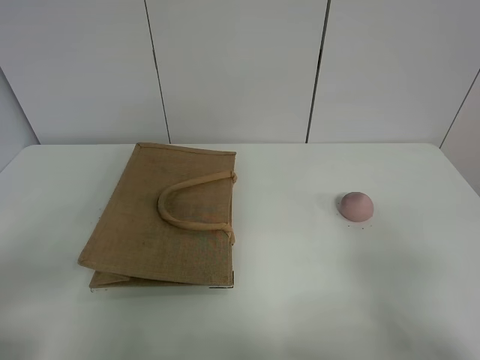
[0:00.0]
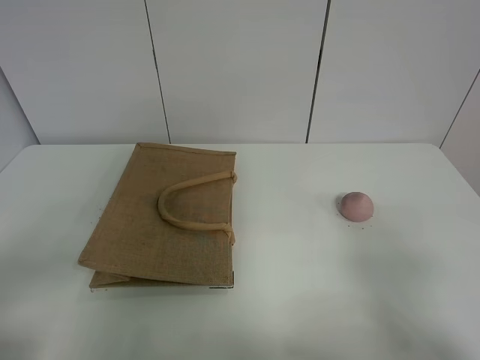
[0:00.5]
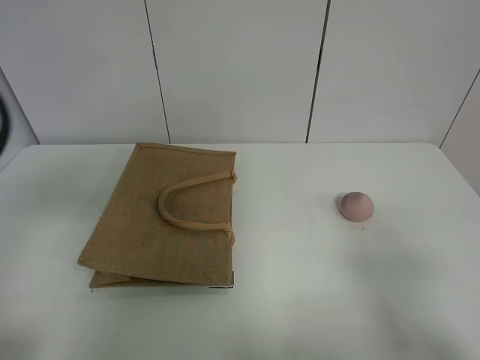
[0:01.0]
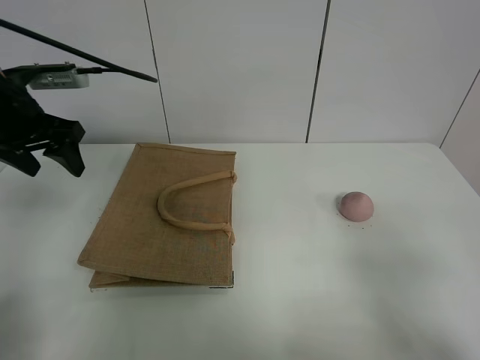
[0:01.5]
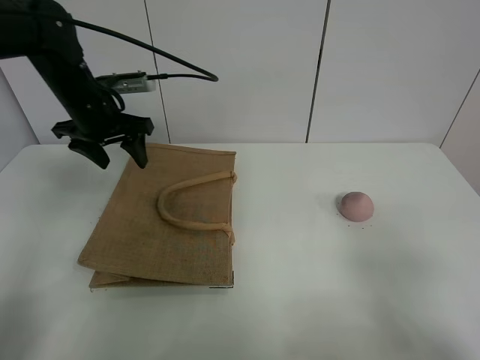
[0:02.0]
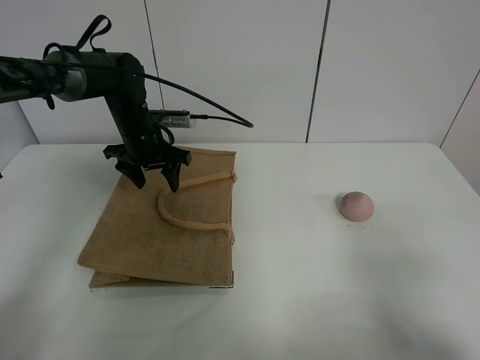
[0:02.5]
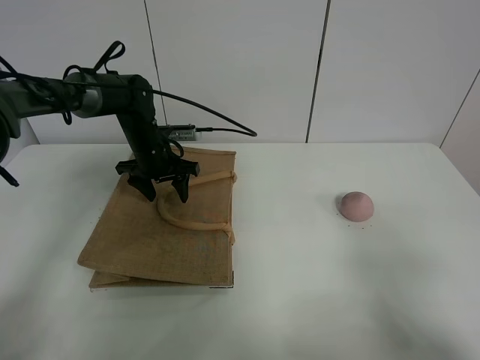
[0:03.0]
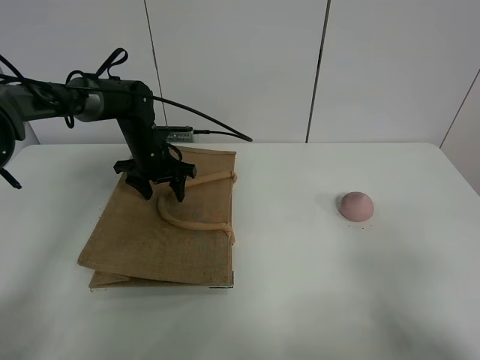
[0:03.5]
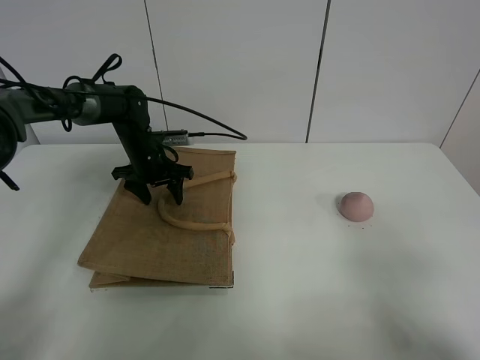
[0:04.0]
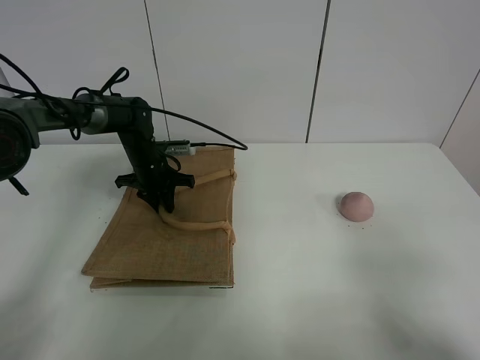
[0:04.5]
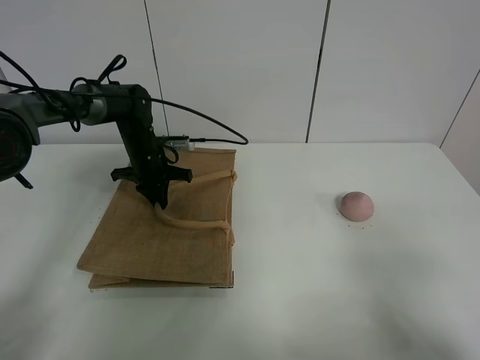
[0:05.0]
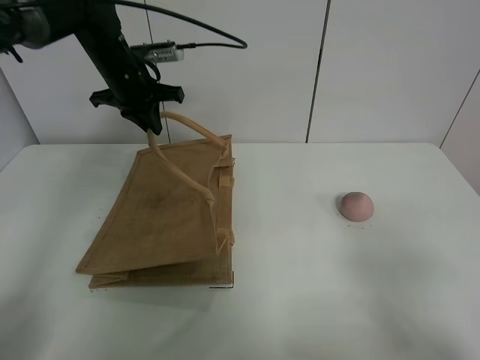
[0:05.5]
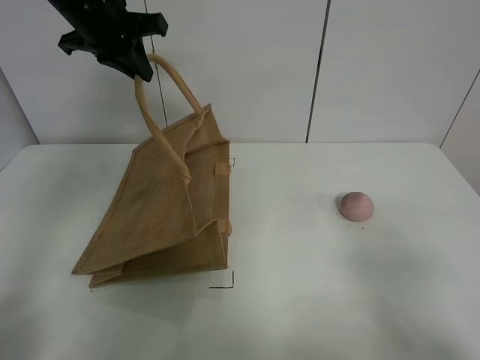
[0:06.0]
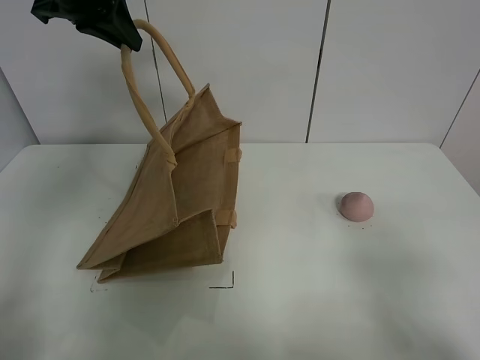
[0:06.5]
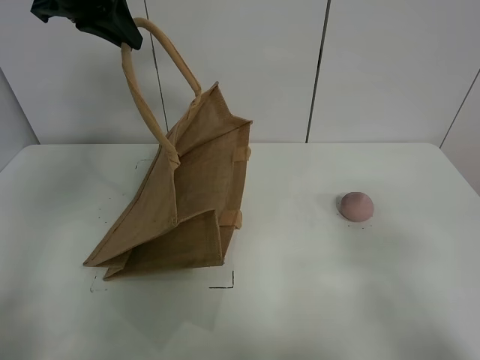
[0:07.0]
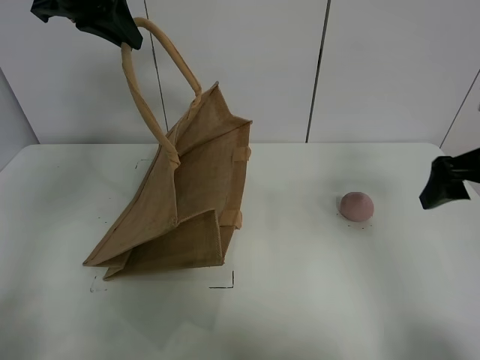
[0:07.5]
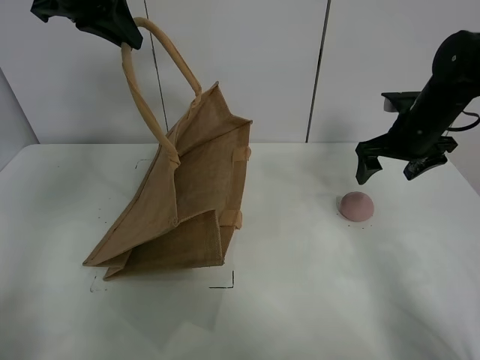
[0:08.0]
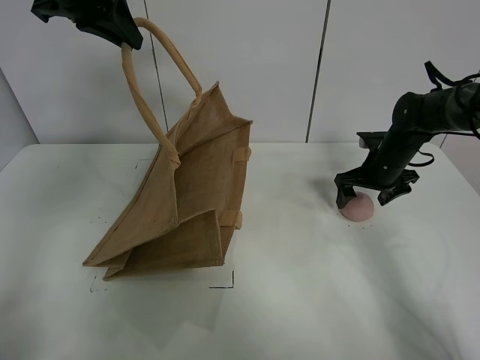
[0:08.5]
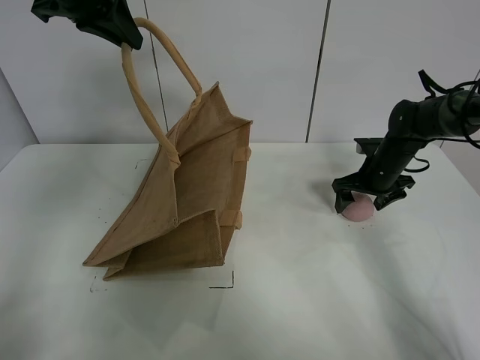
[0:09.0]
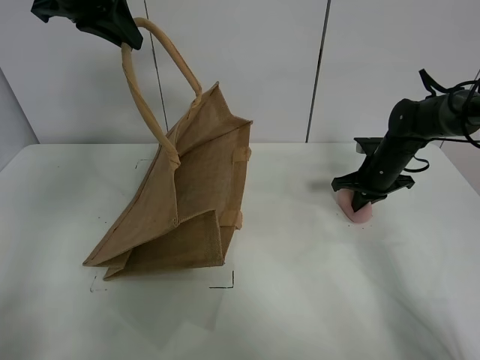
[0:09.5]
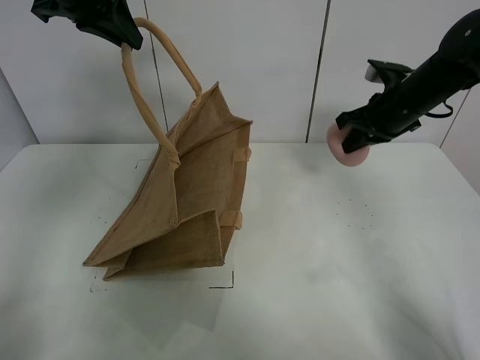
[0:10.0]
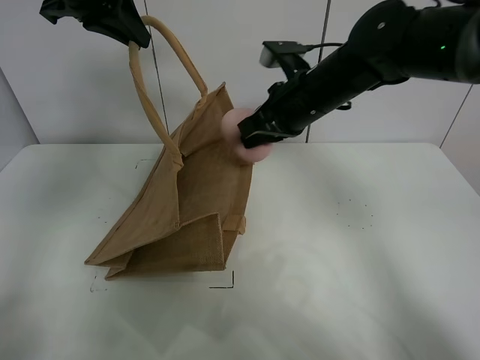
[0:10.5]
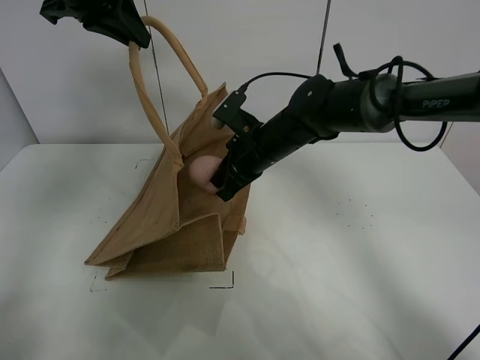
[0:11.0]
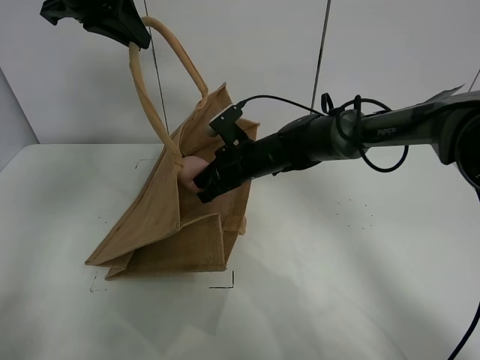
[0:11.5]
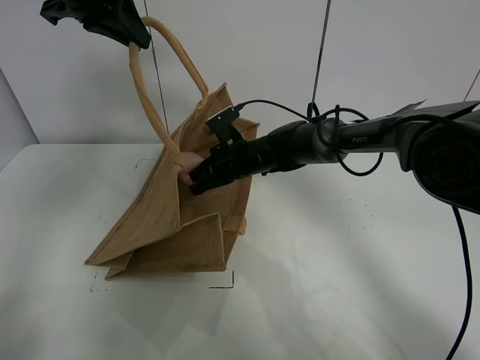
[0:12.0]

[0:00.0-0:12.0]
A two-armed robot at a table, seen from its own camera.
Task of the whole recording: open the brown linen bag and put the peach in the bag.
Step, 0:00.0 to 0:06.5: Lift the handbag with left gripper.
Step, 0:07.0 to 0:09.5: Grasp the peach with right gripper.
0:00.0 to 0:02.0: The left gripper is displaced forward by roughly 40 cm.
0:02.0 to 0:04.0: The left gripper is displaced downward and forward by approximately 15 cm.
0:04.0 to 0:06.0: The left gripper travels upward by about 25 cm, and closes.
0:06.0 to 0:08.0: The right gripper heads forward, covering approximately 40 cm, while the left gripper changes place by approximately 5 cm.
0:08.0 to 0:10.0: The right gripper goes downward and returns, about 10 cm each way, and closes.
0:10.0 to 0:12.0: The right gripper heads to the left and downward, covering some 25 cm.

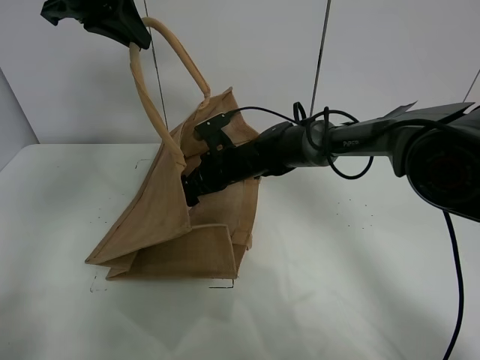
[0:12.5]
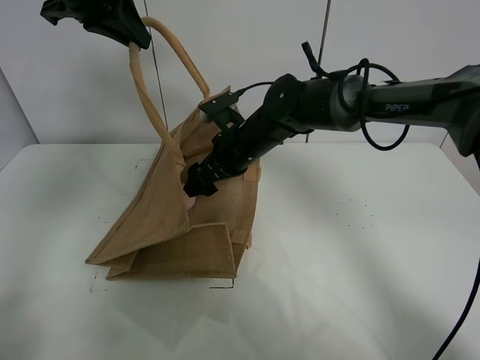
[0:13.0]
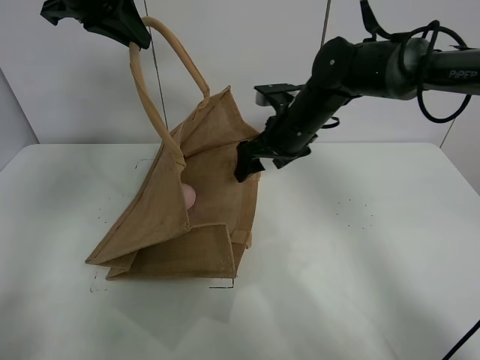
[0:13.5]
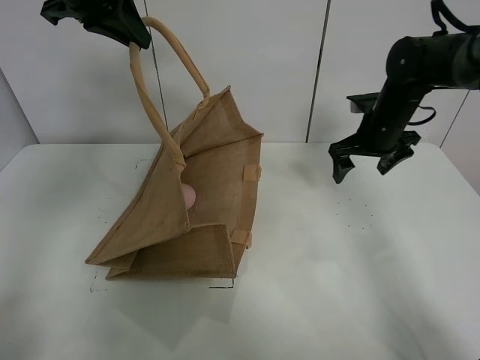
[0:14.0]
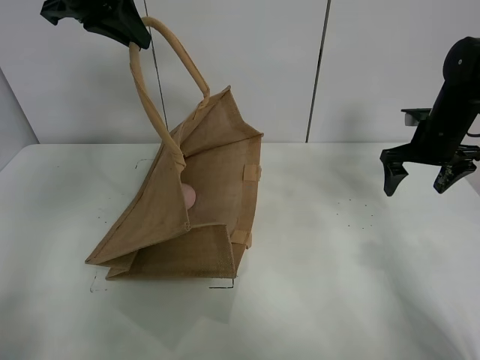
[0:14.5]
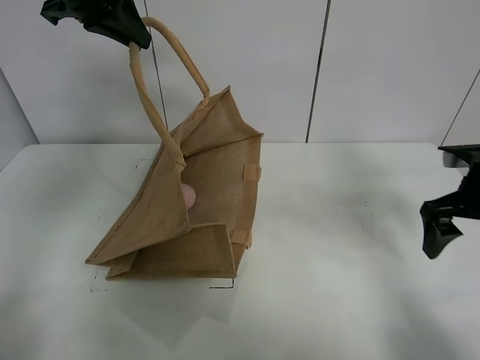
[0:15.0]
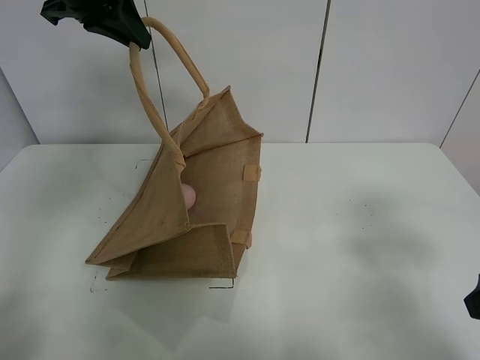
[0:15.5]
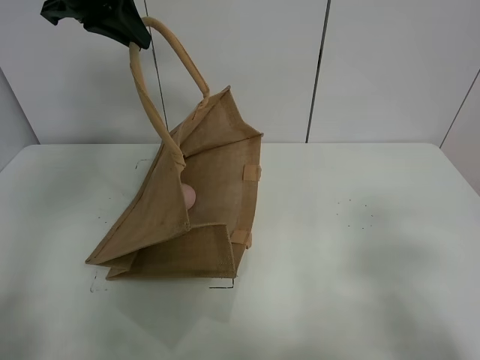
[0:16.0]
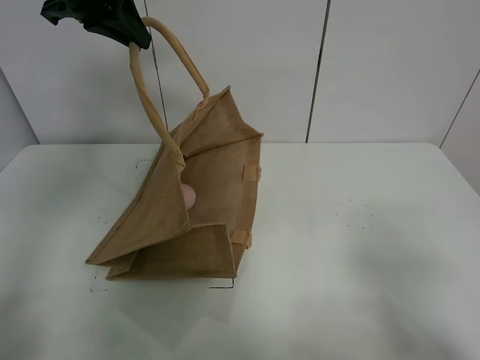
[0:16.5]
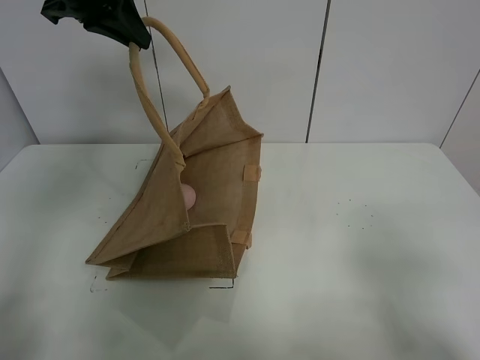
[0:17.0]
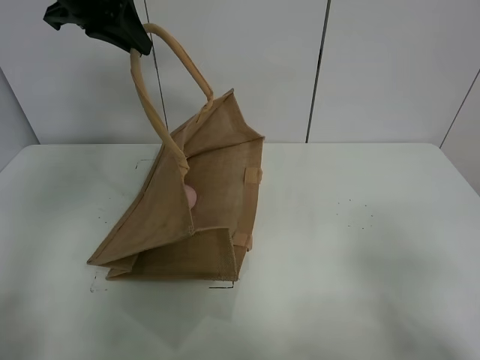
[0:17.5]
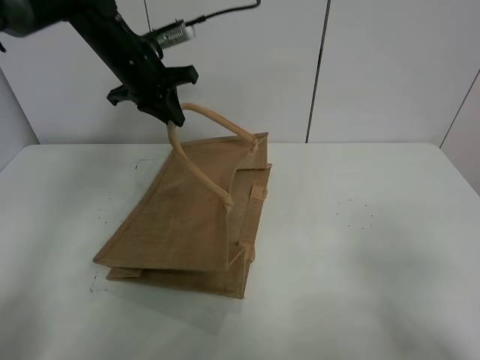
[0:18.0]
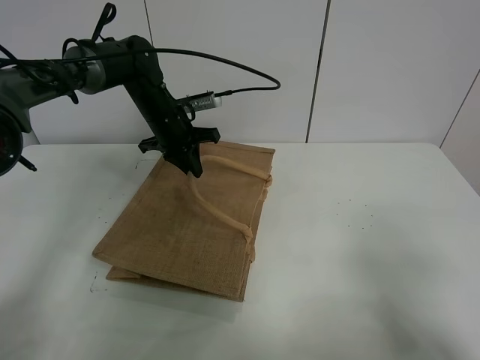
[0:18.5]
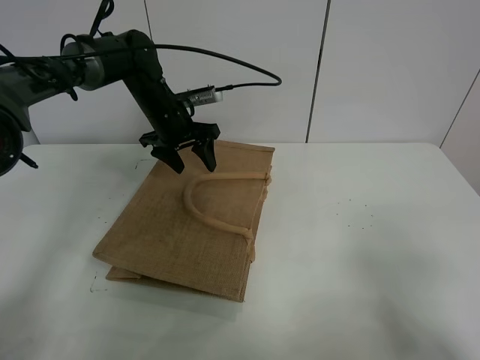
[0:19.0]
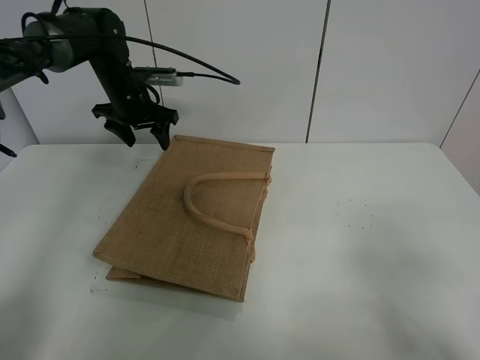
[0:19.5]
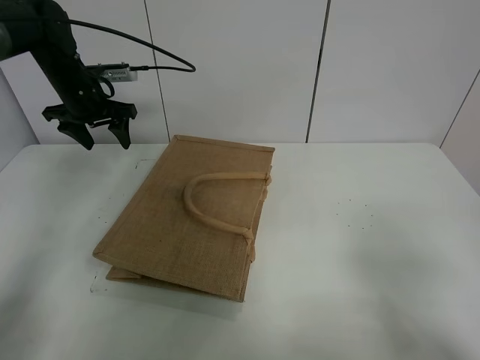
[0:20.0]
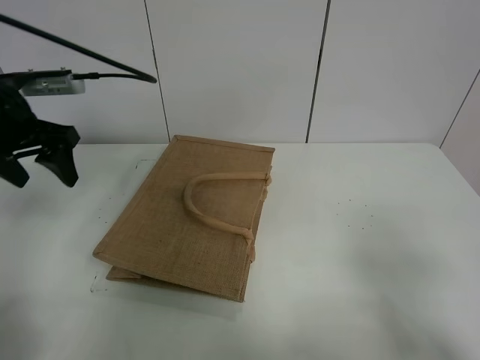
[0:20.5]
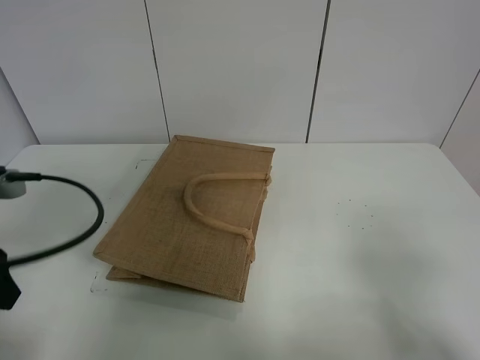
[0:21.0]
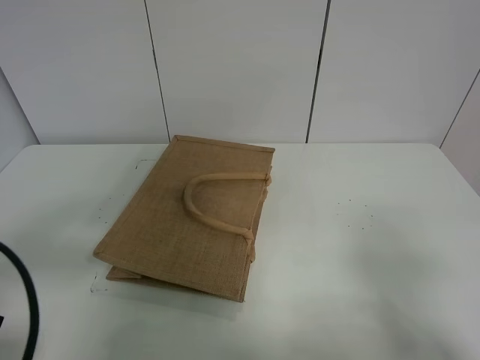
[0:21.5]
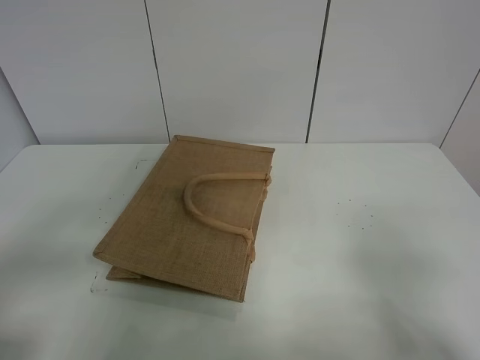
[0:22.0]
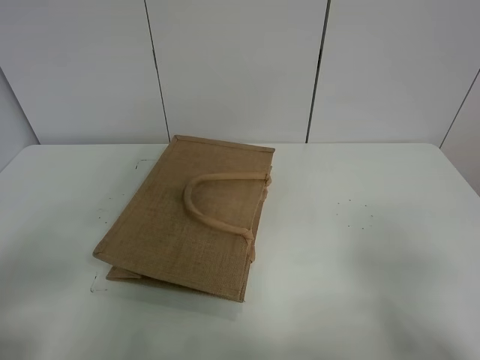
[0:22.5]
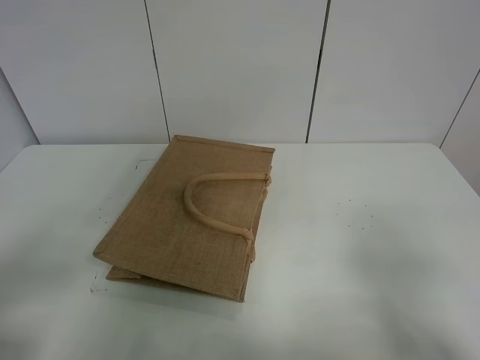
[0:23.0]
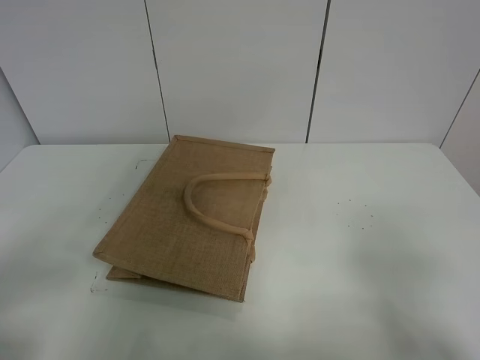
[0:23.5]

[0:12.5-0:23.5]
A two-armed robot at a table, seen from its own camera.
Task of the whole recording: open the brown linen bag and put the peach in the bag.
Step, 0:14.0 to 0:19.5: Put down the handbag with left grippe.
0:12.5 to 0:14.5: The right gripper is displaced to the right by about 30 cm.
0:14.5 to 0:16.0: The right gripper heads backward, covering some 35 cm.
0:16.0 to 0:18.0: The left gripper is displaced downward and forward by approximately 15 cm.
0:18.0 to 0:20.0: The left gripper is displaced to the left and downward by approximately 10 cm, and opens.
0:20.0 to 0:21.5: The left gripper travels backward by roughly 40 cm.
0:21.5 to 0:23.5: The left gripper is displaced backward by about 5 cm.

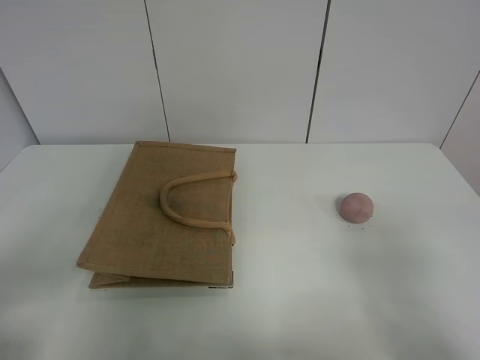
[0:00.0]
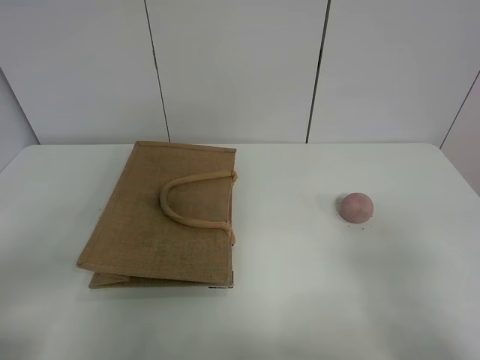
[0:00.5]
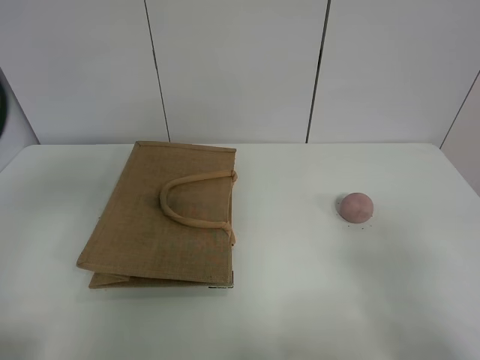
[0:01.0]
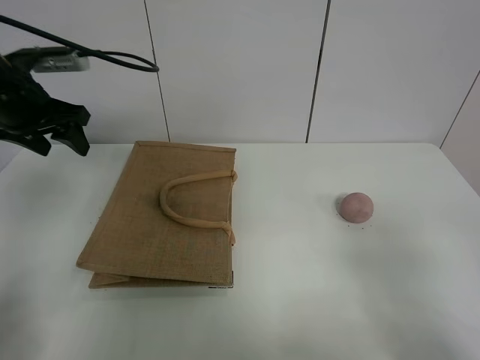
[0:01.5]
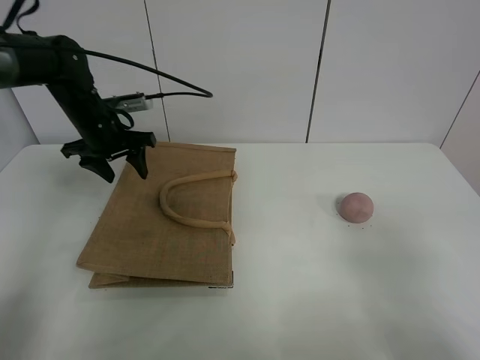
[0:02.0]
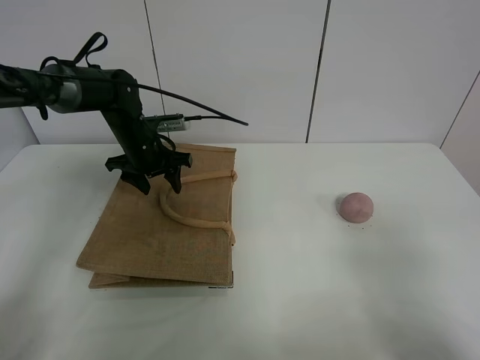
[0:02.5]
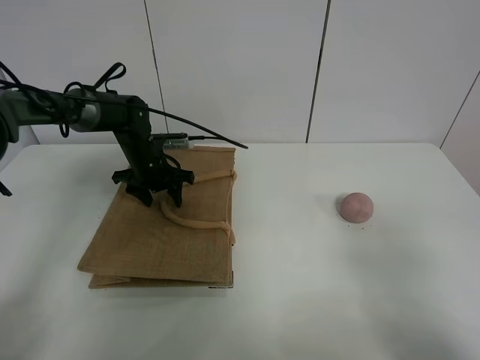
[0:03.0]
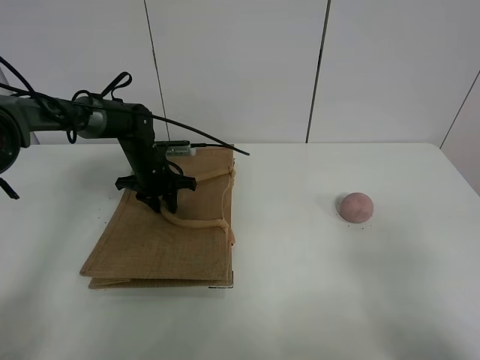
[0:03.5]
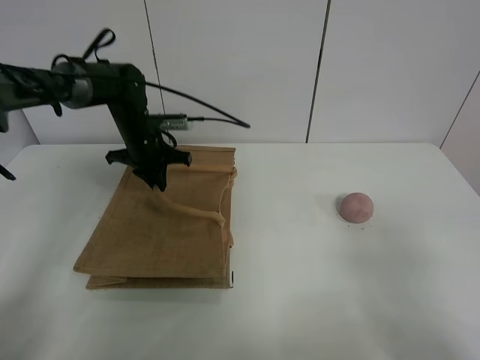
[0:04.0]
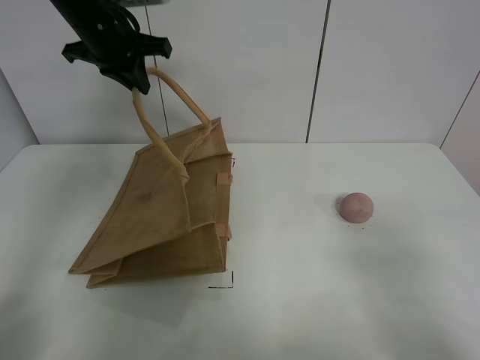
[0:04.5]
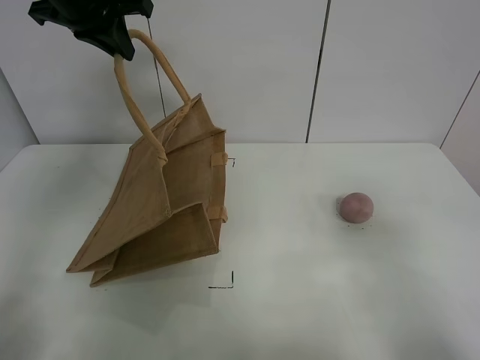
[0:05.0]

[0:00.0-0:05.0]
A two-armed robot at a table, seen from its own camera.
Task of the whole recording: open the brown linen bag and put the peach in the bag.
Step, 0:00.0 to 0:04.5: Lift the handbag with left gripper.
0:00.0 to 0:02.5: The left gripper travels forward by roughly 40 cm.
0:02.5 to 0:05.0: The left gripper goes approximately 25 cm upward, and closes. The right gripper moves approximately 5 cm.
